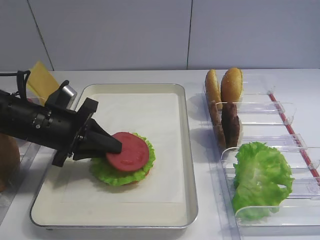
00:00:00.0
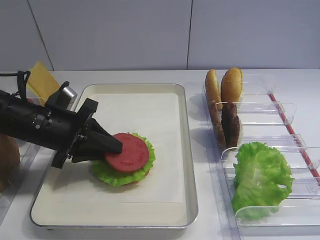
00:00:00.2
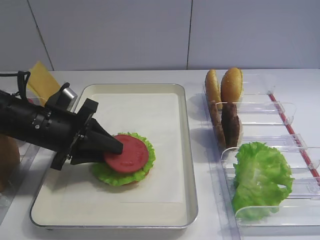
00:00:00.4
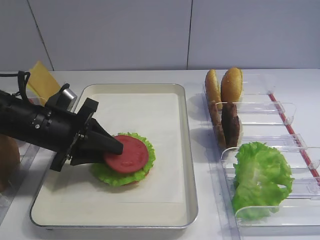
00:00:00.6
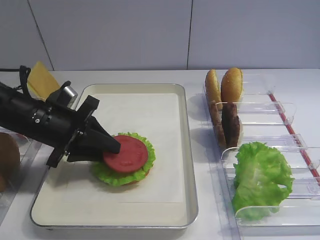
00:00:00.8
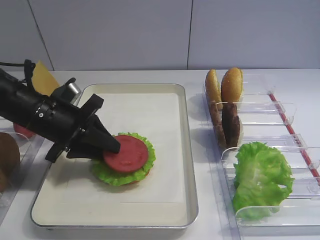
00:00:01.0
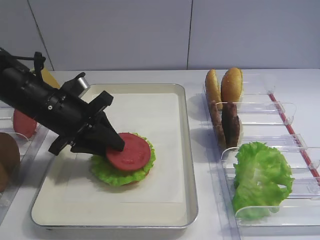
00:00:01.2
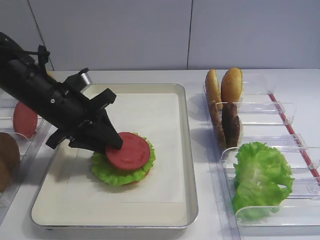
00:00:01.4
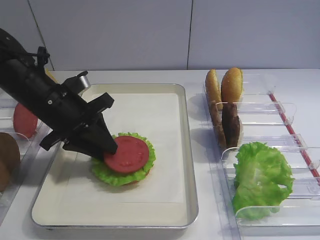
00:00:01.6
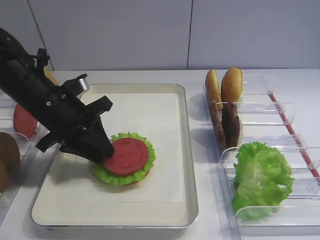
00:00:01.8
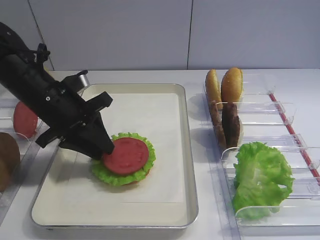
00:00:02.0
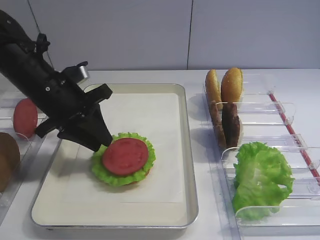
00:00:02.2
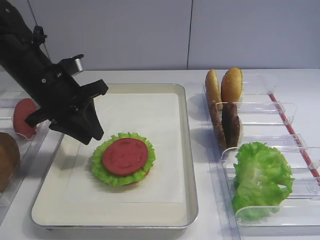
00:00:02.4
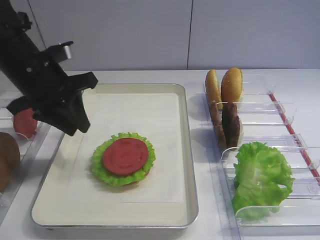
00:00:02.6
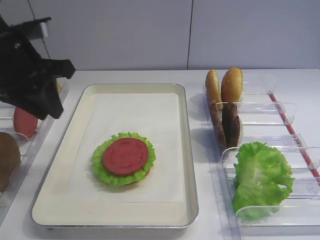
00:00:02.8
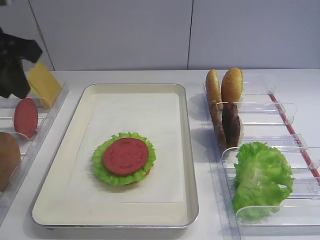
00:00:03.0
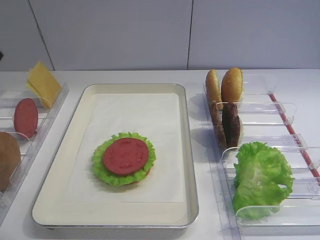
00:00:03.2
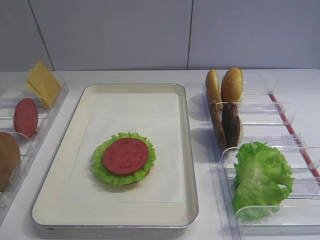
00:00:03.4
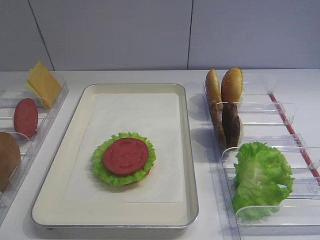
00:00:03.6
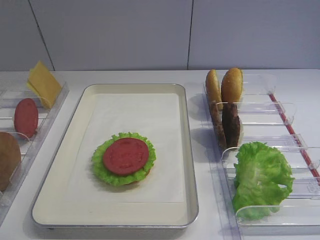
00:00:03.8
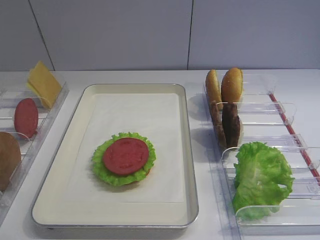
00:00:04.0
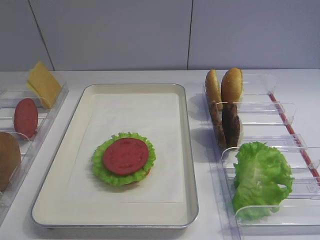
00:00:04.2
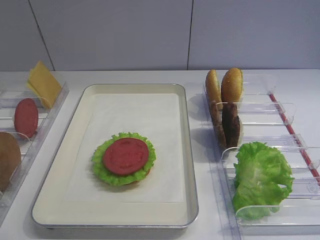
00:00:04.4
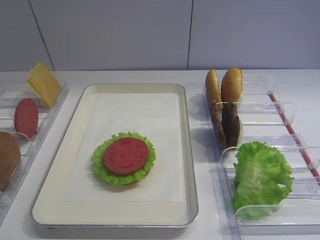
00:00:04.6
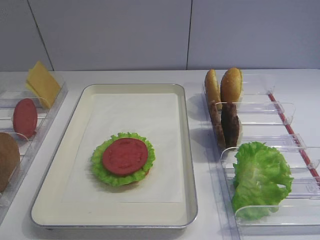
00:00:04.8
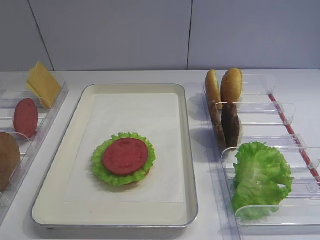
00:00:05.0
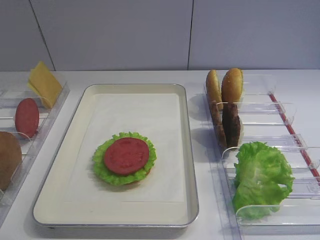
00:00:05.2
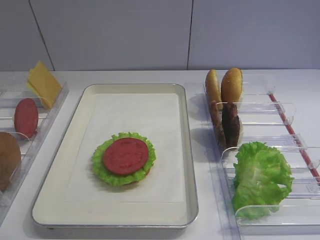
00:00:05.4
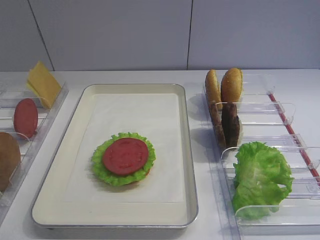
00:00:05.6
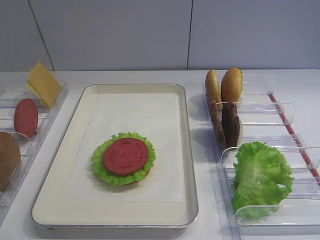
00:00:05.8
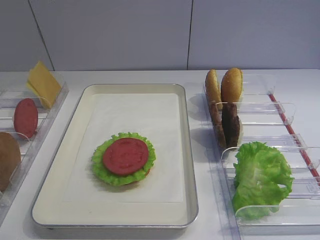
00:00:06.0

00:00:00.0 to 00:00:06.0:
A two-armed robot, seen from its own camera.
Step, 00:00:00.0 to 00:00:02.2: Place the tomato slice on the lettuce leaf with the left gripper.
00:00:00.0 to 00:00:01.6: The left gripper opens up.
00:00:01.6 to 00:00:03.0: The left gripper is displaced upward and to the left by some 15 cm.
00:00:03.0 to 00:00:04.4: The left gripper is displaced backward by approximately 30 cm.
